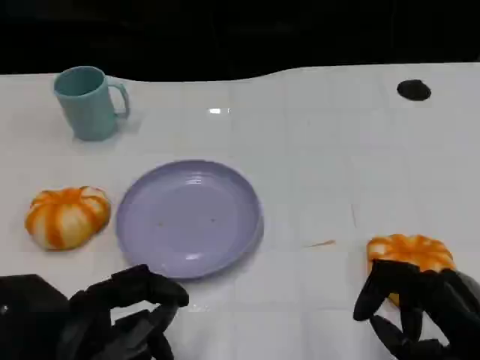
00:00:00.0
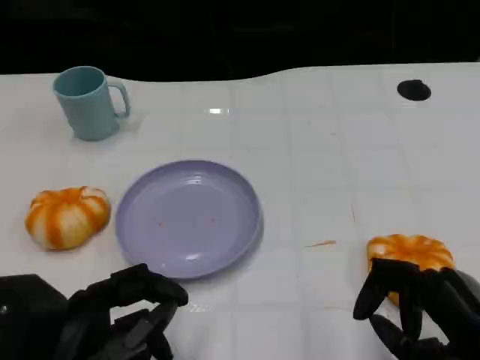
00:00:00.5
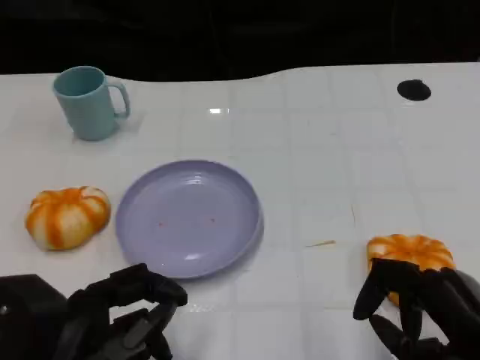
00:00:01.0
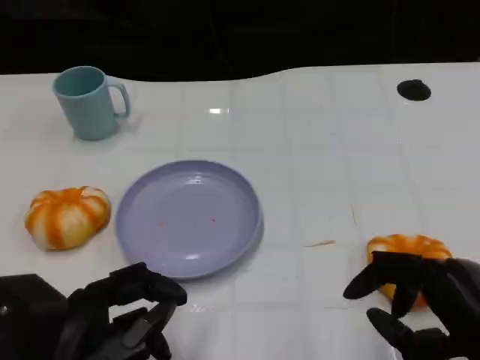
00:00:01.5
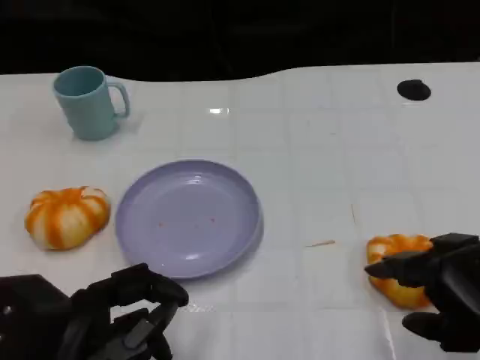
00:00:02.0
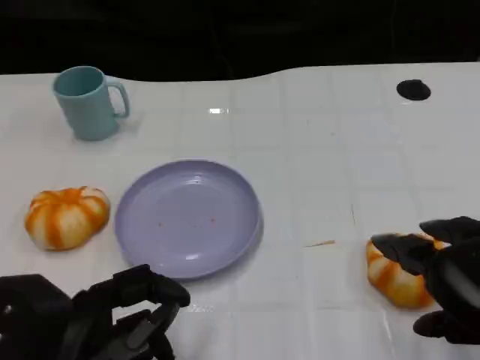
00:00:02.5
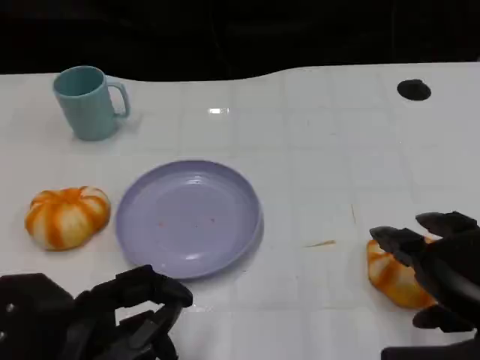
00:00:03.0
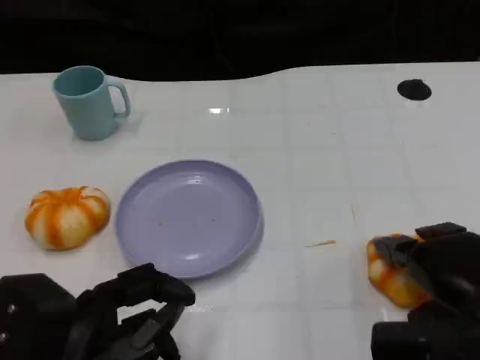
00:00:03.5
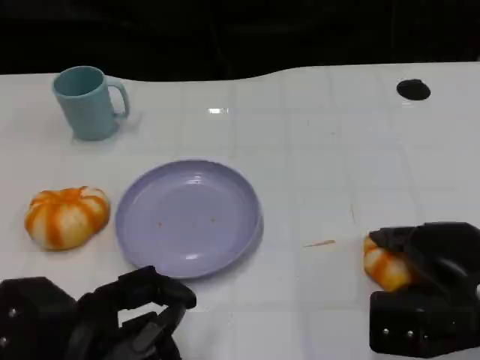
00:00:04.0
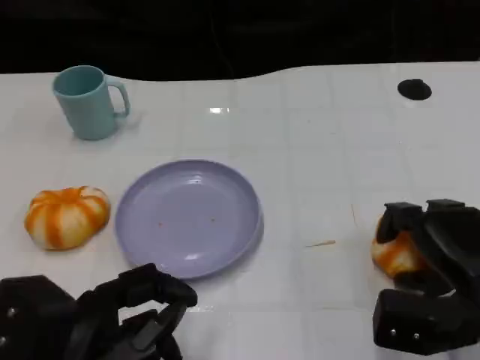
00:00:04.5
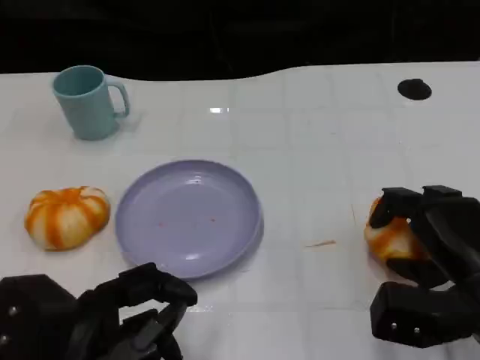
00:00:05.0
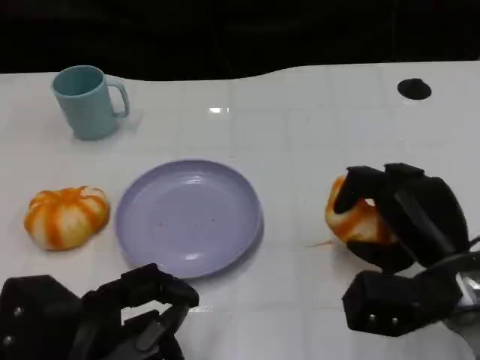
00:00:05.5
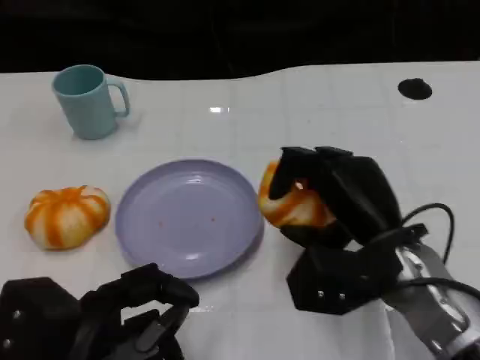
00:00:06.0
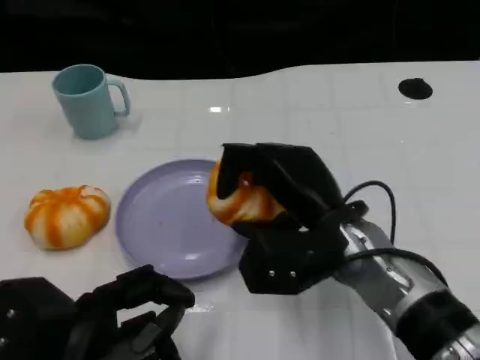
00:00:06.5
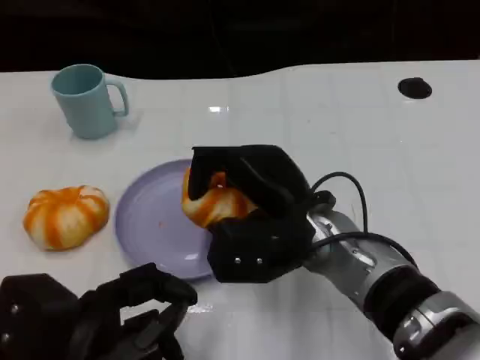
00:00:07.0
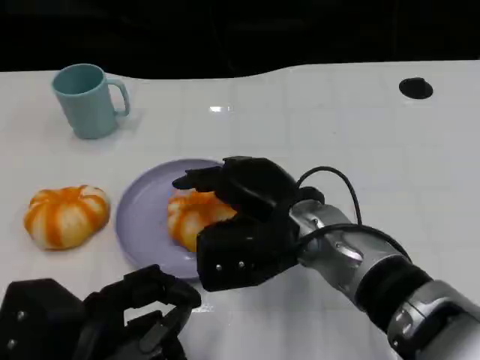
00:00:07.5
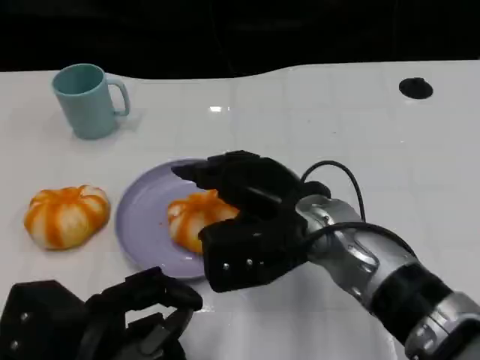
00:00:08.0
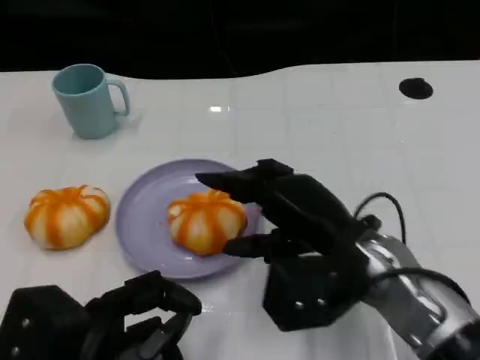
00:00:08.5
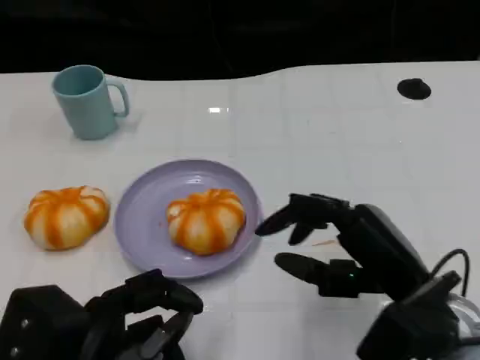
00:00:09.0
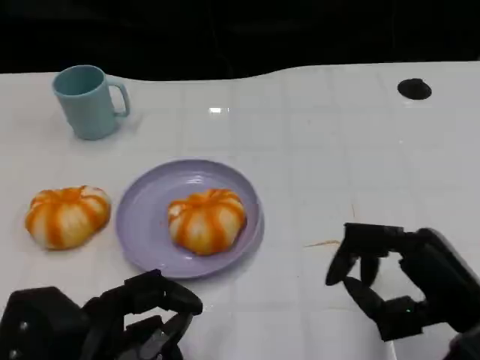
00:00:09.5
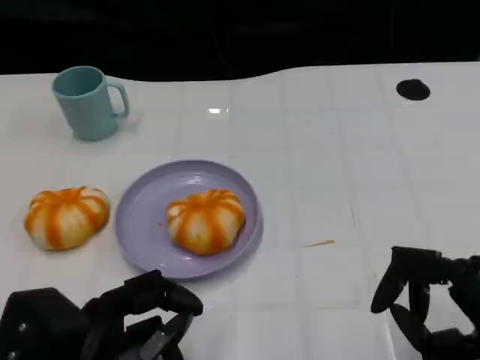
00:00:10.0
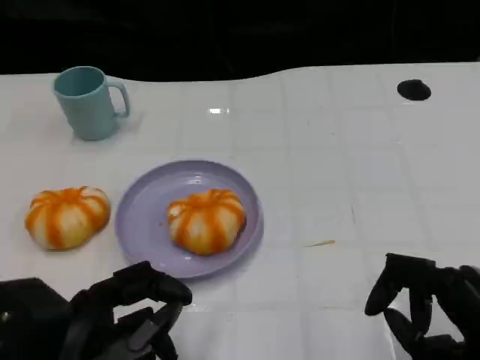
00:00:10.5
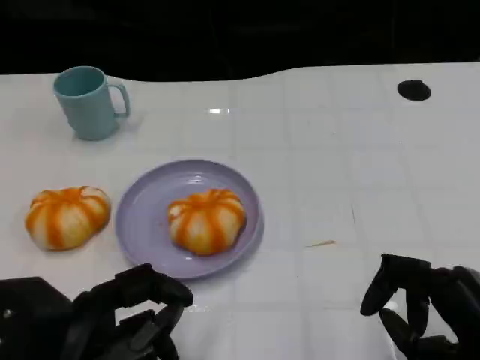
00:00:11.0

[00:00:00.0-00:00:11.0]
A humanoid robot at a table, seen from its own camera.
Task of the whole recording: Grasp the bread from the table and place it into the plate.
00:00:02.0 to 00:00:03.5: The right hand is displaced forward by roughly 5 cm.
00:00:03.5 to 00:00:05.5: The right hand shifts by approximately 5 cm.
00:00:05.5 to 00:00:07.5: The right hand goes about 15 cm to the left.
00:00:07.5 to 00:00:09.0: The right hand goes some 15 cm to the right and backward.
00:00:09.0 to 00:00:11.0: The right hand travels backward and to the right by approximately 10 cm.

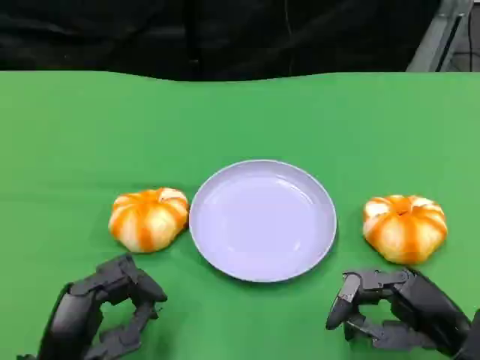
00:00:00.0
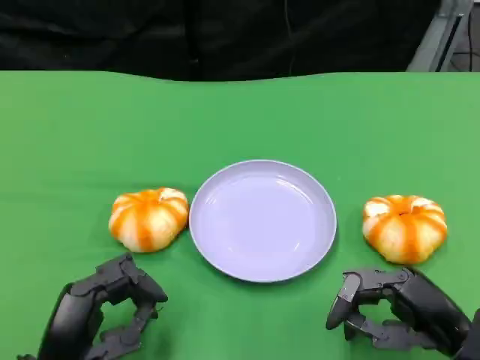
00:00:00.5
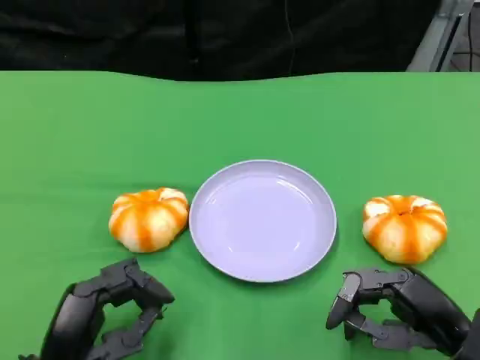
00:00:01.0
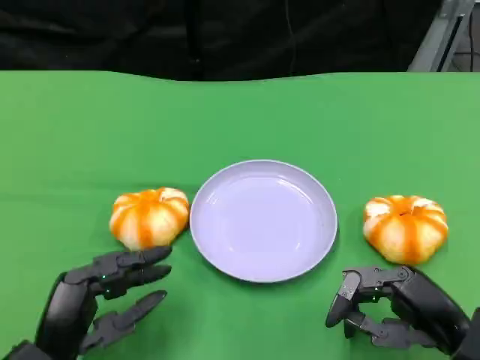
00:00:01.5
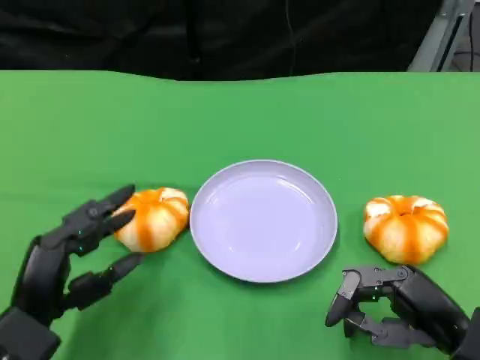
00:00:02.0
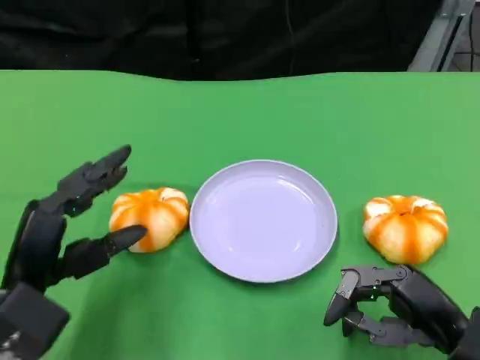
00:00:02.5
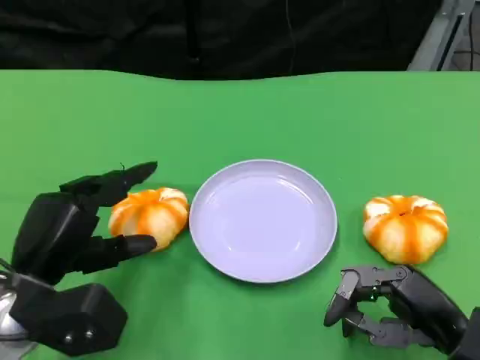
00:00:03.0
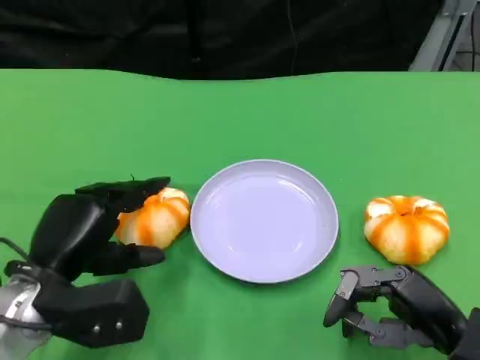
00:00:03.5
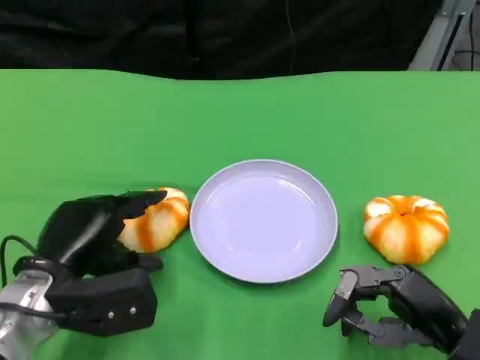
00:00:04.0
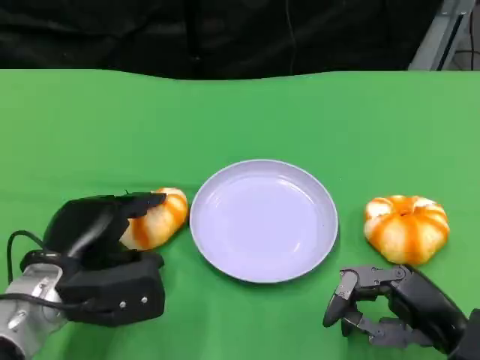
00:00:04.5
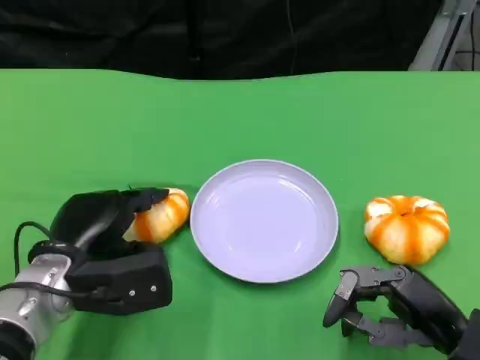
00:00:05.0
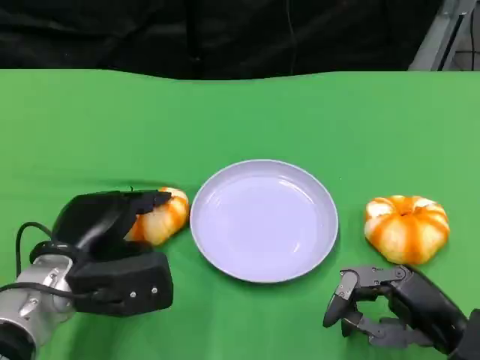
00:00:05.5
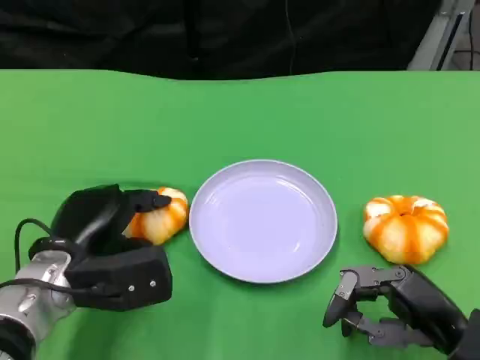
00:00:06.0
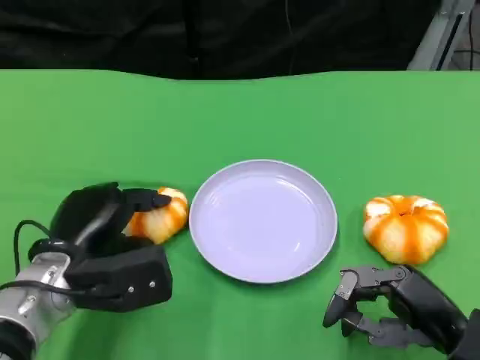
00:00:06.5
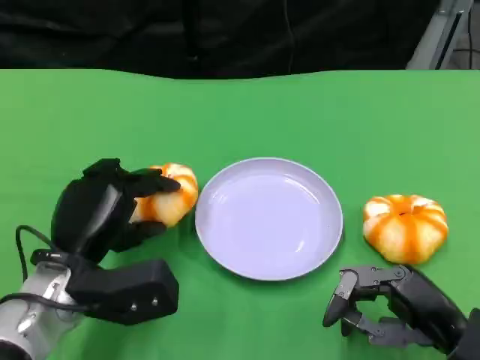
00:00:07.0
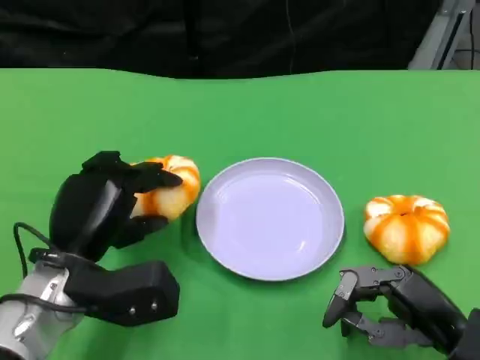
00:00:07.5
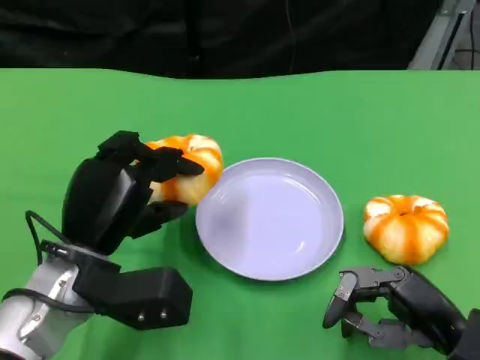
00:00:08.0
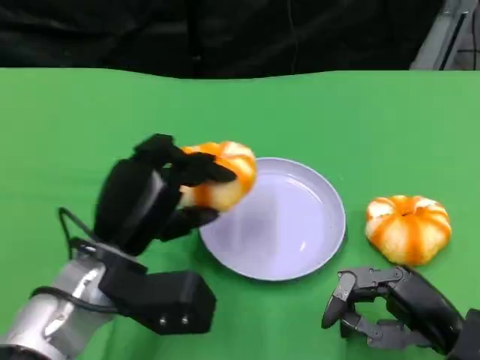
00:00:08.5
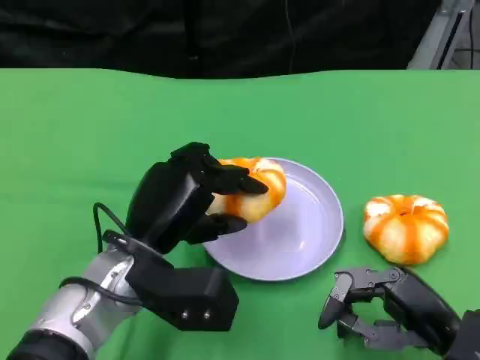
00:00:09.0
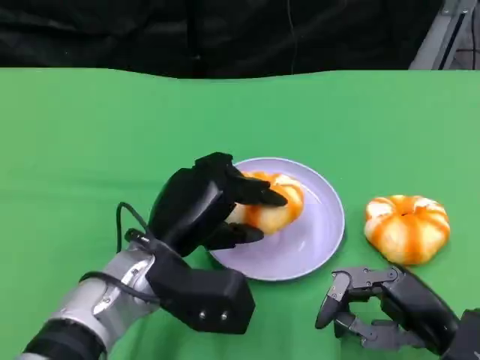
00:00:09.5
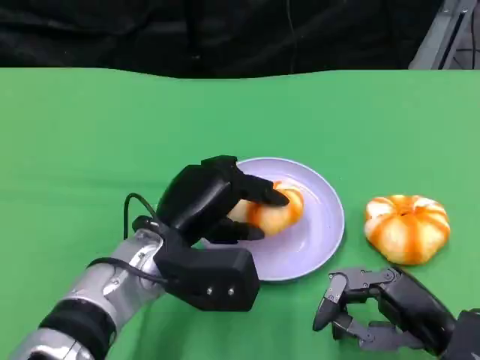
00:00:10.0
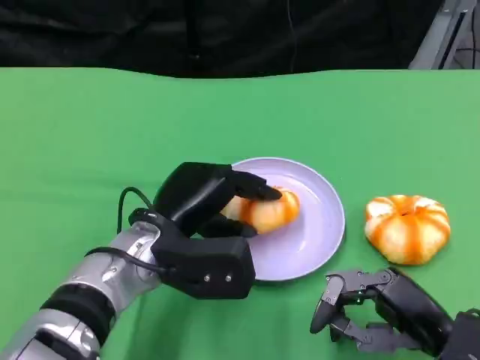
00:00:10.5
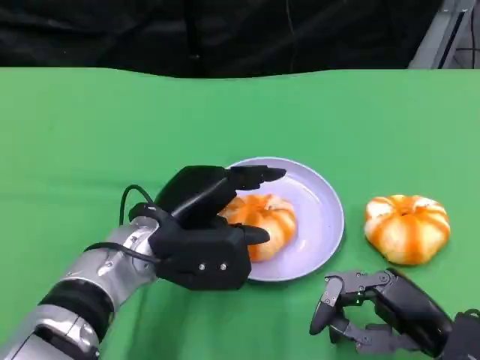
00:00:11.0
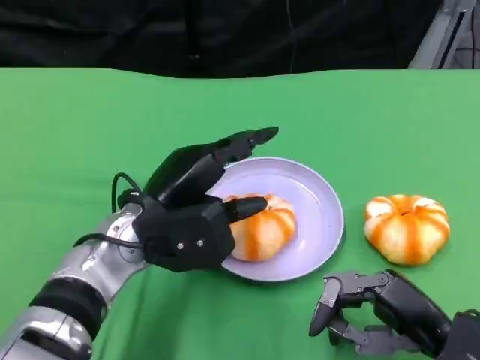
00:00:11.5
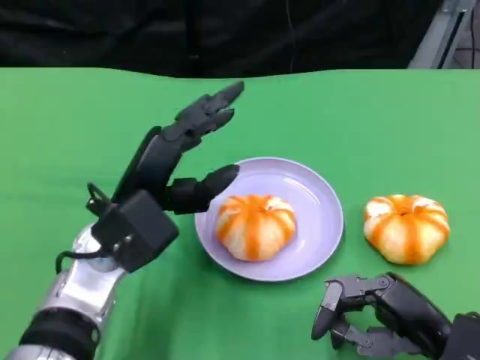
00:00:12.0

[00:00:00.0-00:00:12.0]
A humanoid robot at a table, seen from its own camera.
Task of the whole recording: Grasp the bread from the table and place it into the plate.
00:00:00.0 to 00:00:02.0: The hands move only a little.
00:00:02.0 to 00:00:04.0: The left hand goes some 5 cm forward.
00:00:04.0 to 00:00:06.0: The hands move only a little.
00:00:08.0 to 00:00:10.0: The left hand heads to the right, covering about 5 cm.

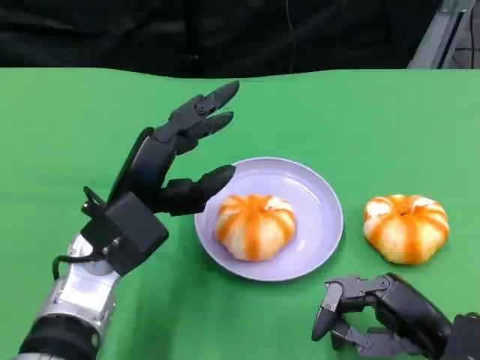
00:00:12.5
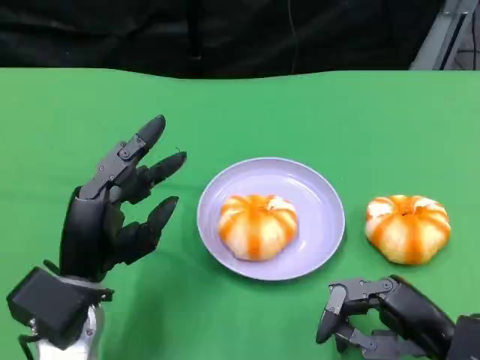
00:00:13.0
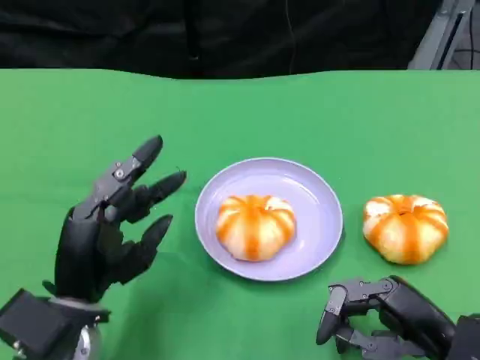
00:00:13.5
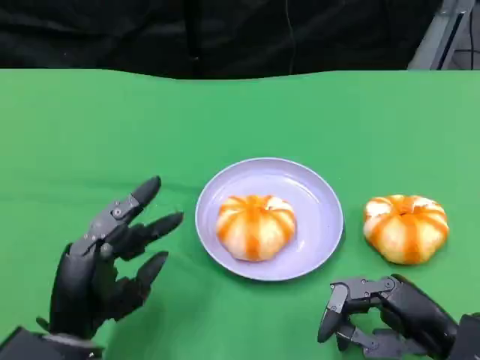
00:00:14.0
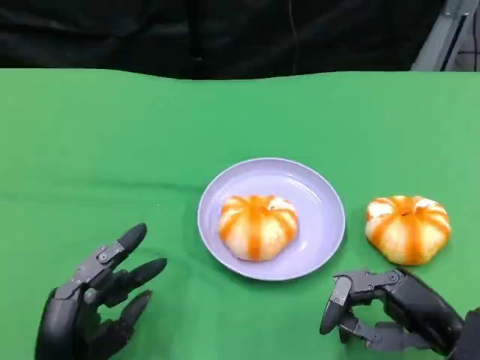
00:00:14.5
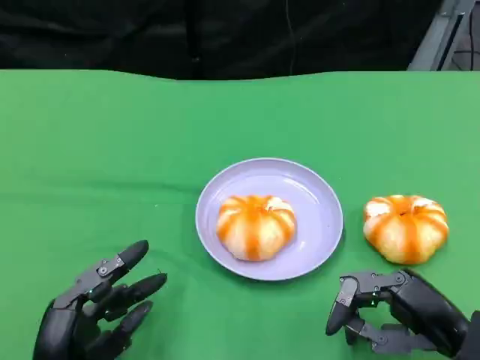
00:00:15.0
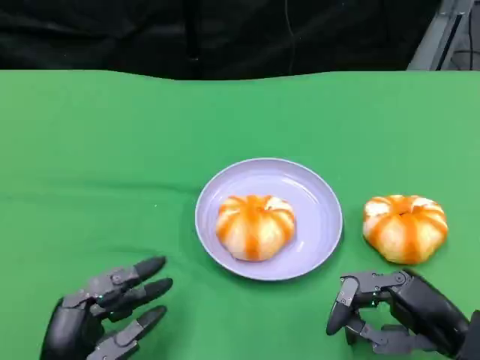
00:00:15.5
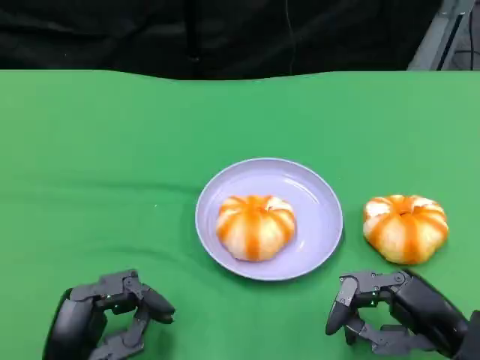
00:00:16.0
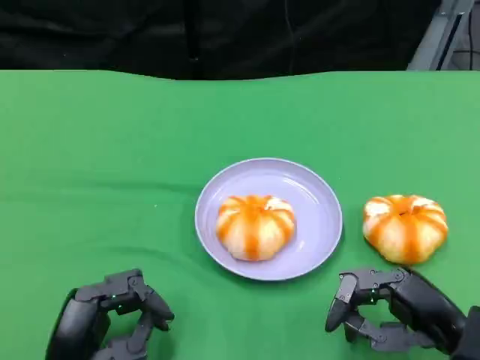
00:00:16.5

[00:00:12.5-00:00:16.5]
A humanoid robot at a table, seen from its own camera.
Task of the whole recording: Grasp the bread from the table and place it into the plate.
00:00:12.5 to 00:00:14.5: The left hand heads backward, downward and to the left, covering some 15 cm.
00:00:14.5 to 00:00:16.5: The hands make only small movements.
